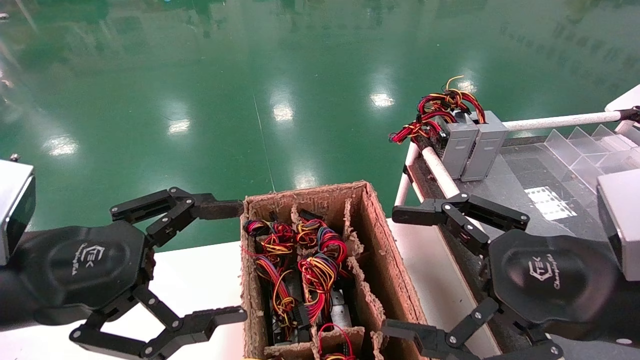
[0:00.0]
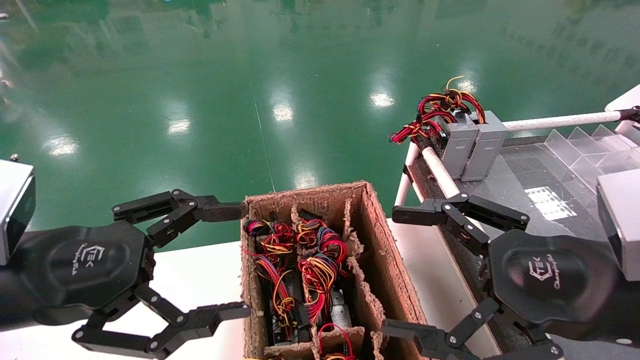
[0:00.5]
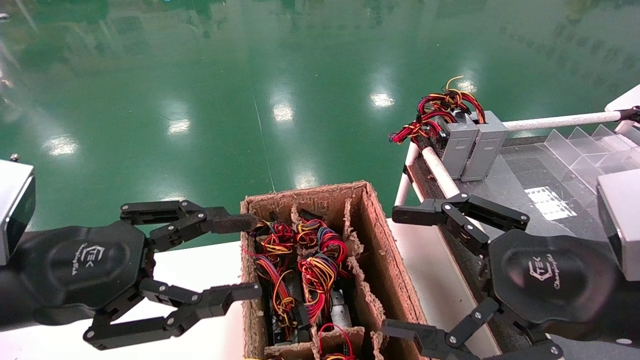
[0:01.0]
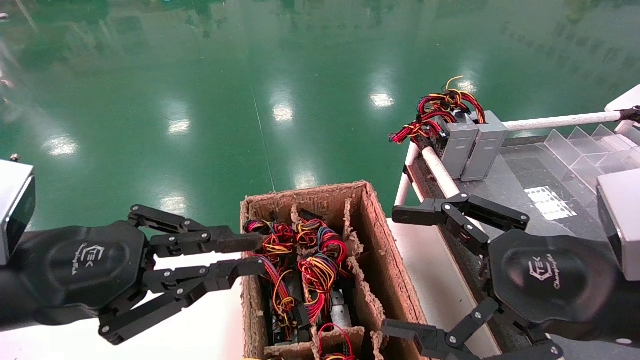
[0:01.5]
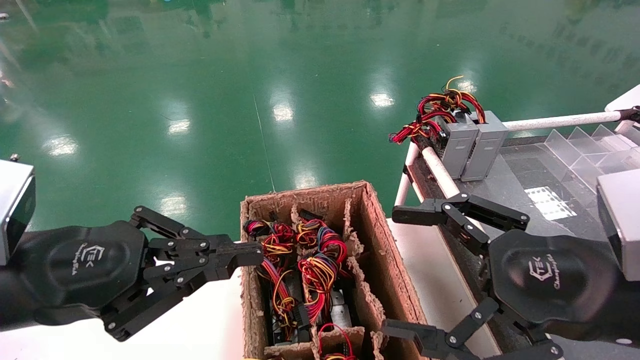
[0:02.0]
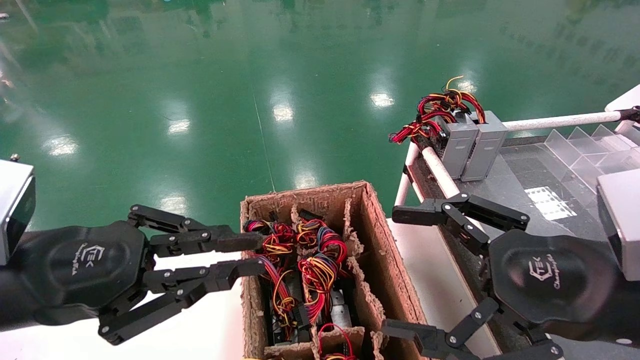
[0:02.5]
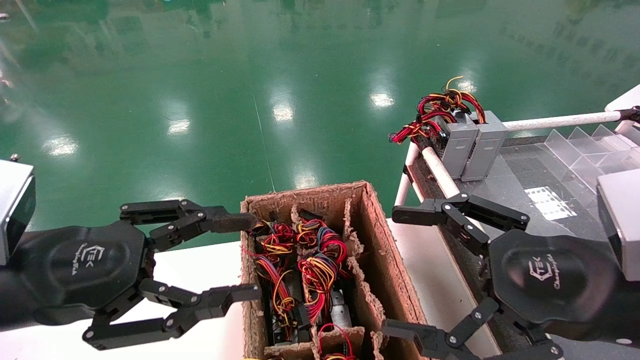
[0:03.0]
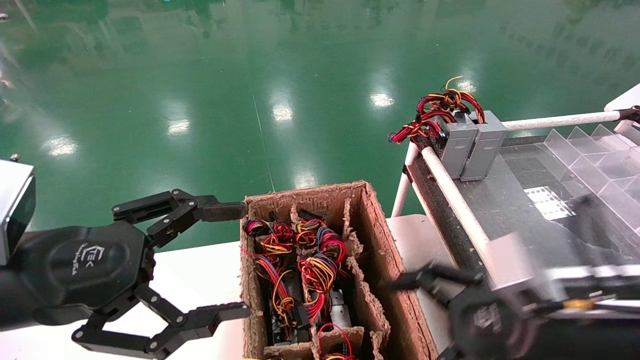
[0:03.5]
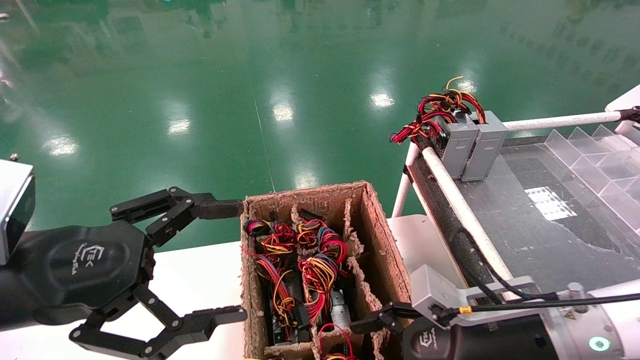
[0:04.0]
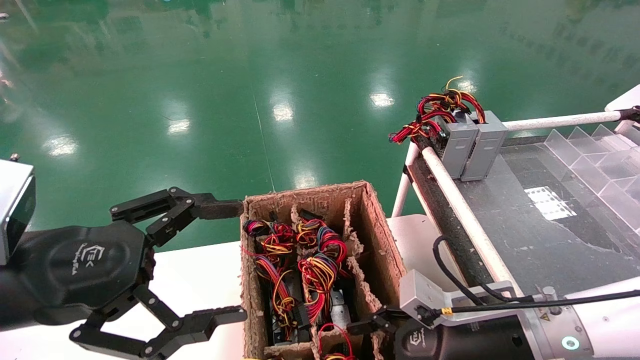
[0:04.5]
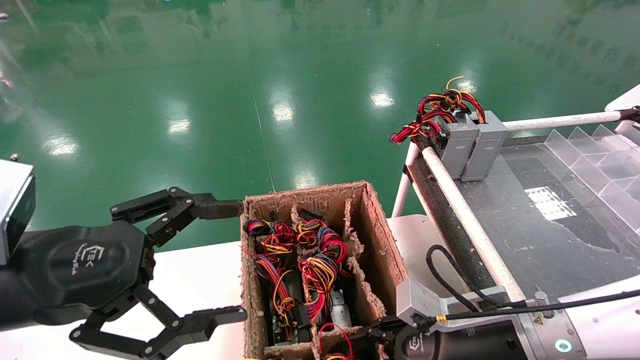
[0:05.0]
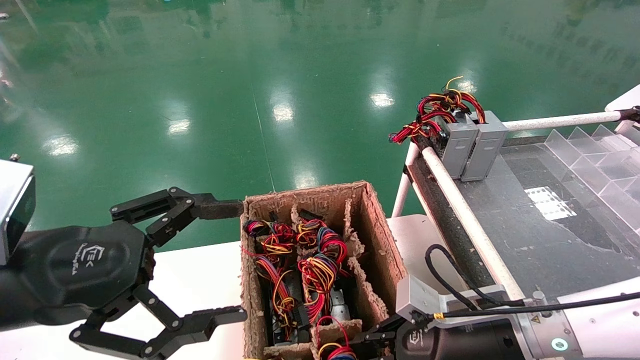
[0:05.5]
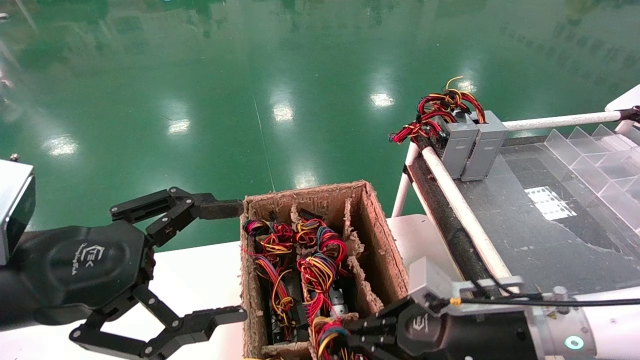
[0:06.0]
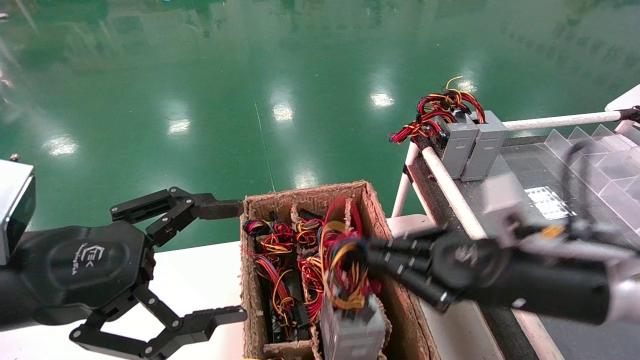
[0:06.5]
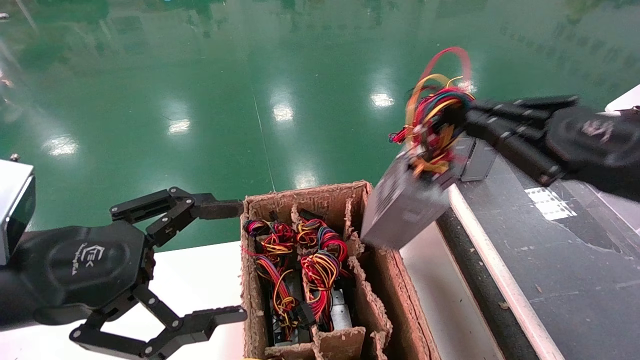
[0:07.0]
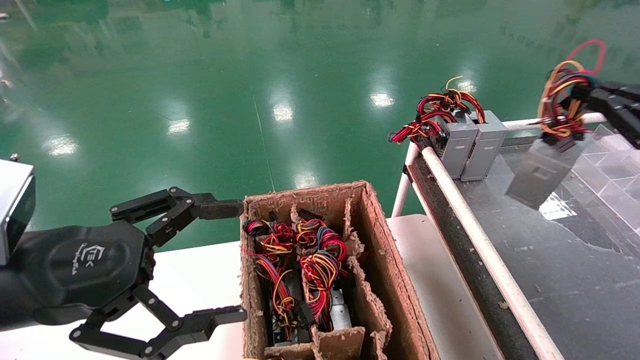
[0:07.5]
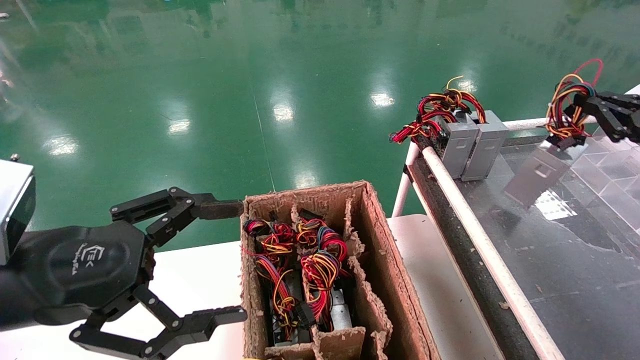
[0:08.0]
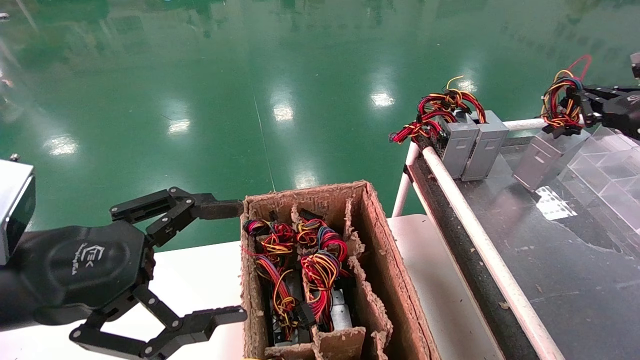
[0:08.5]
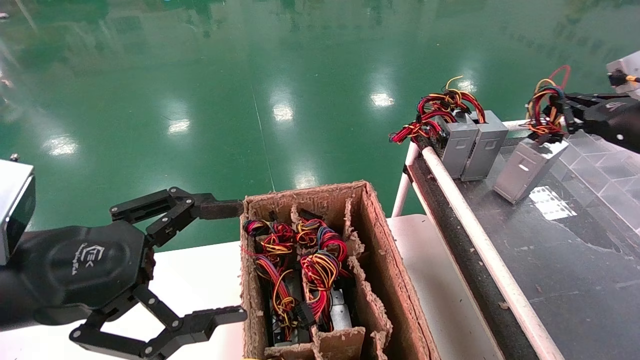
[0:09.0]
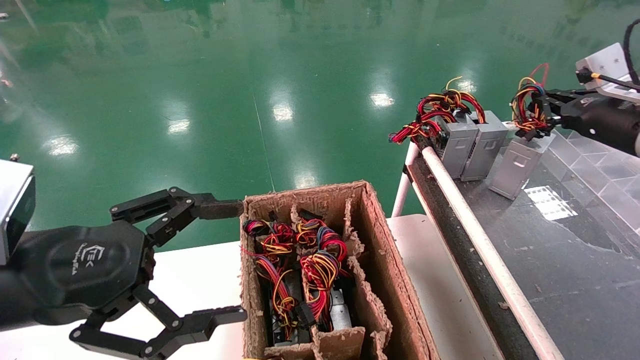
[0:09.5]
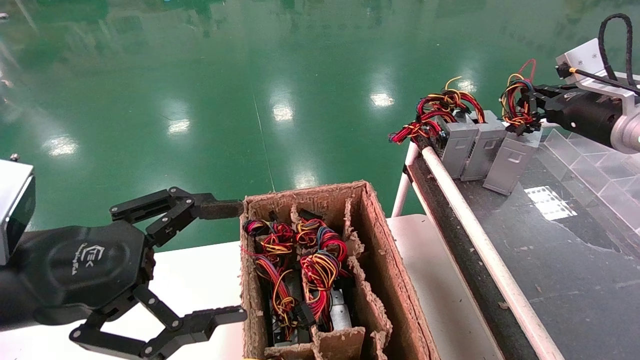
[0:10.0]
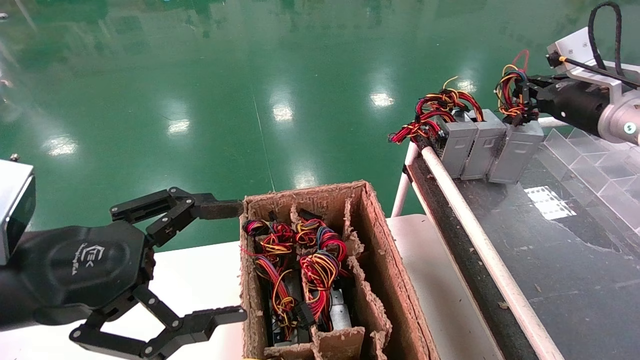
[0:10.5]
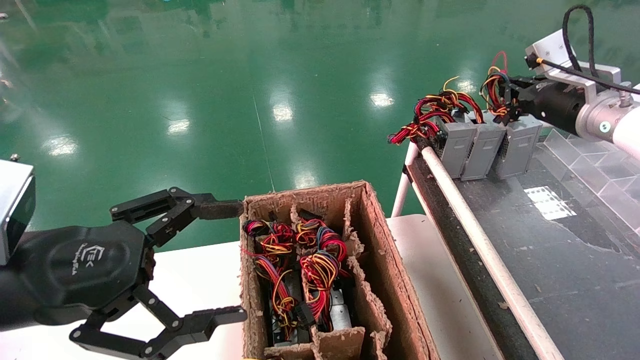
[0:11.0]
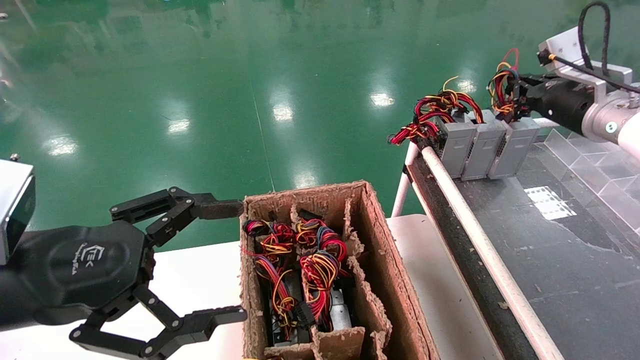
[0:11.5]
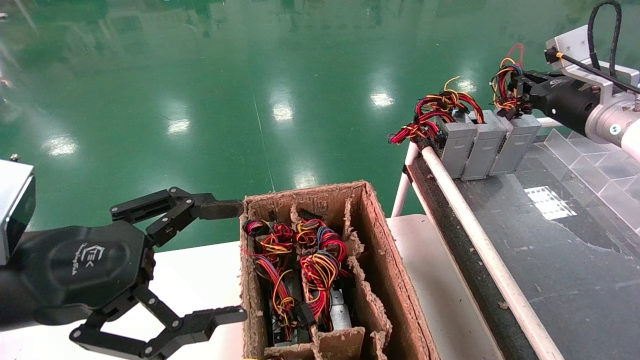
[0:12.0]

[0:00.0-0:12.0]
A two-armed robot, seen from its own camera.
Step, 0:02.0 to 0:05.5: Grab and lift the power supply from the large box.
0:00.0 to 0:02.0: The left gripper closes up.
0:02.0 to 0:04.0: The left gripper opens its fingers; the right gripper goes some 15 cm downward and forward.
0:04.0 to 0:06.0: The right gripper closes up.
0:06.0 to 0:08.0: The right gripper travels to the right and upward by roughly 30 cm.
0:08.0 to 0:10.0: The right gripper travels forward and to the left by some 10 cm.
0:10.0 to 0:12.0: There are only small adjustments of the grippers.

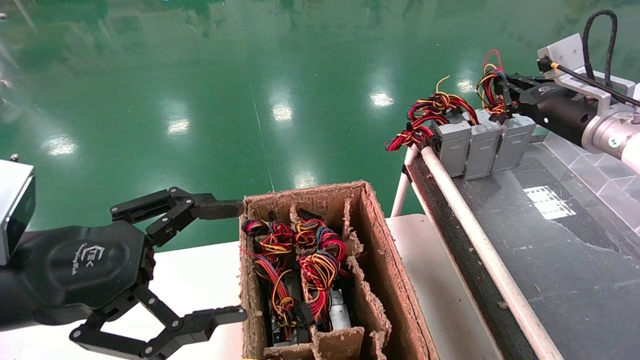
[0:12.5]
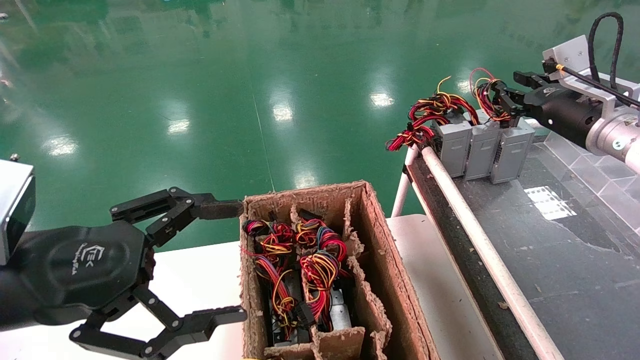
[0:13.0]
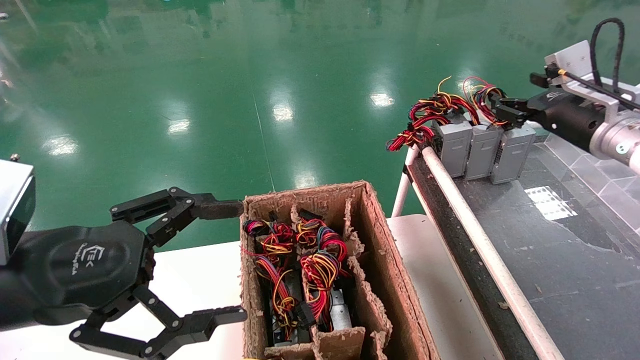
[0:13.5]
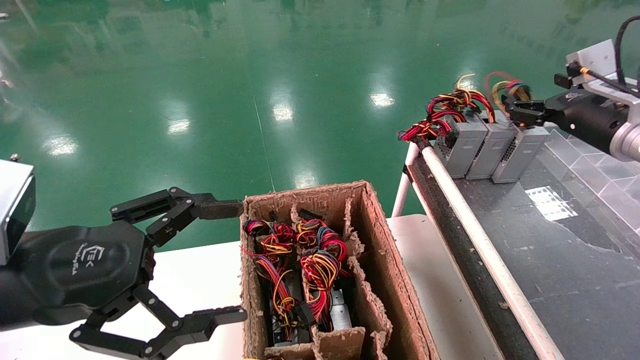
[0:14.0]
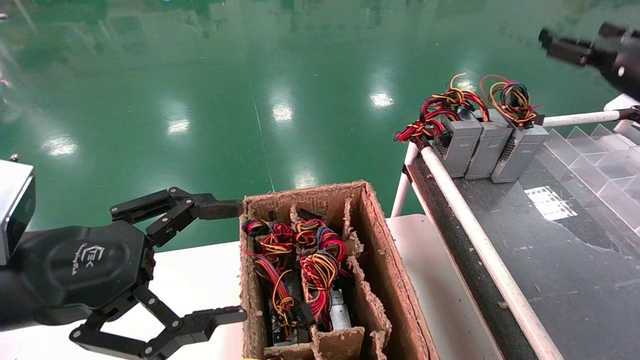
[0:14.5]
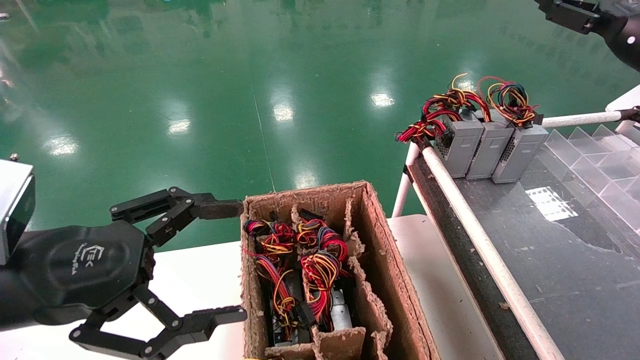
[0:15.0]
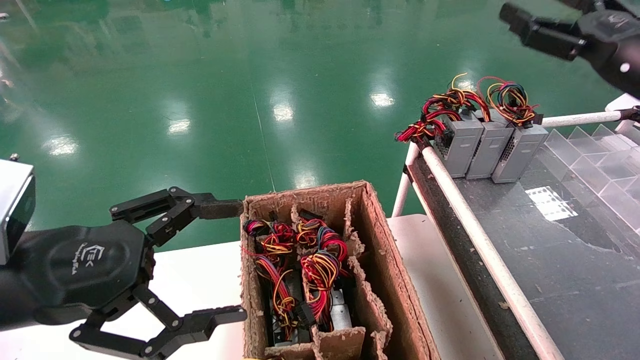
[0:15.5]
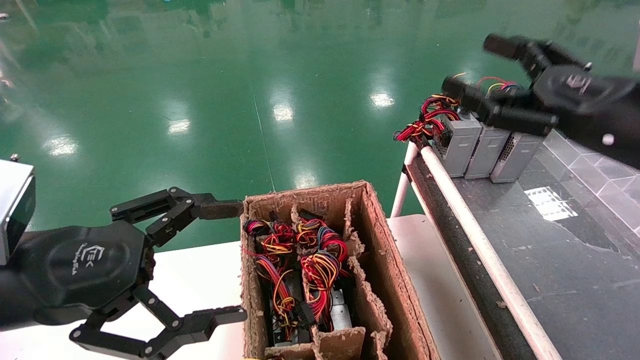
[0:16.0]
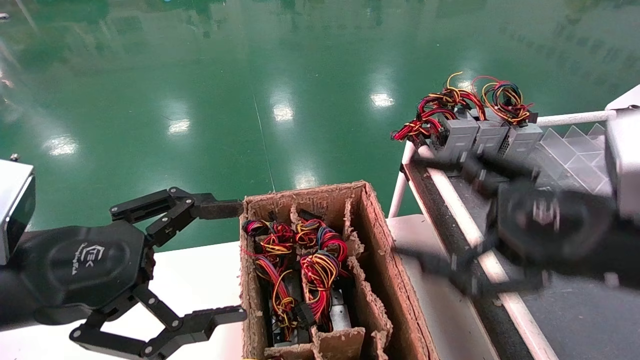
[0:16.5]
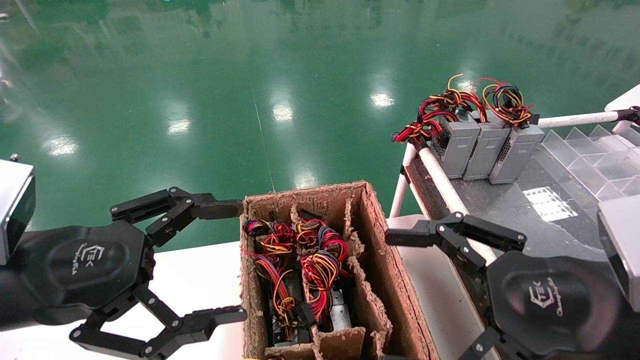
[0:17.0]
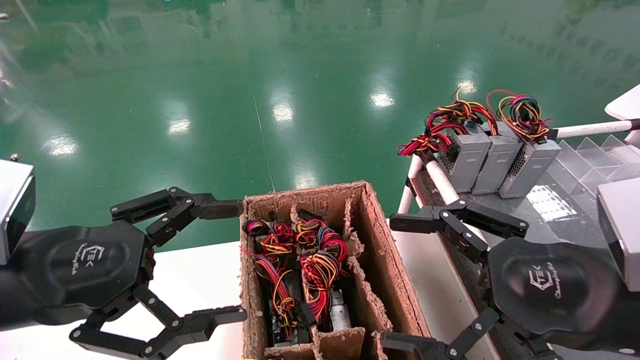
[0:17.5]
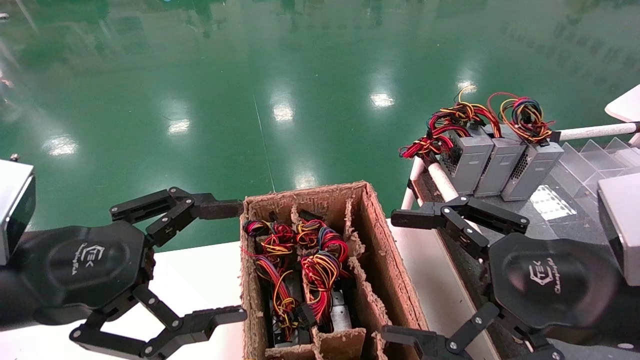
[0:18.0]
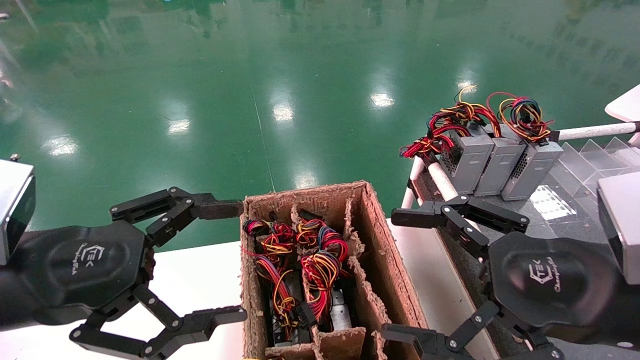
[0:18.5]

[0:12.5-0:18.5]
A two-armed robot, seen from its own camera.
0:12.5 to 0:14.5: The right gripper shifts roughly 5 cm upward, and opens up.
0:14.5 to 0:16.5: The right gripper shifts about 30 cm backward, to the left and downward.
0:16.5 to 0:18.5: The grippers make only small movements.

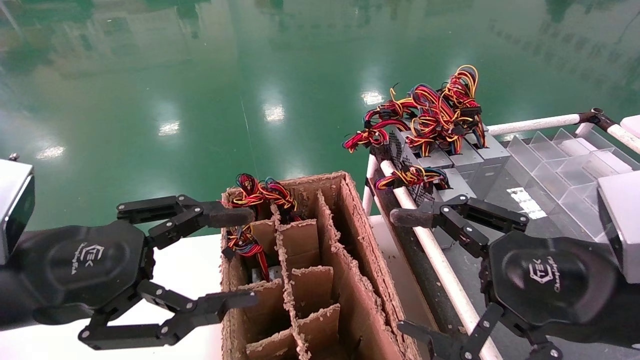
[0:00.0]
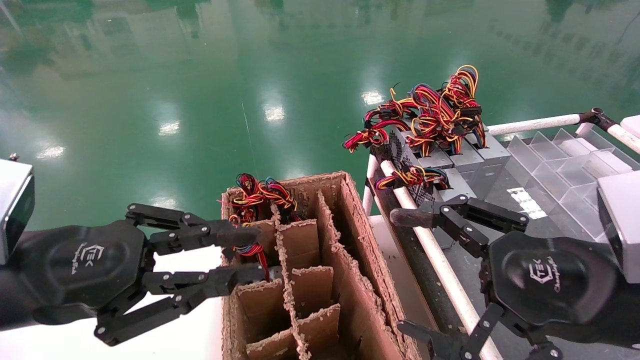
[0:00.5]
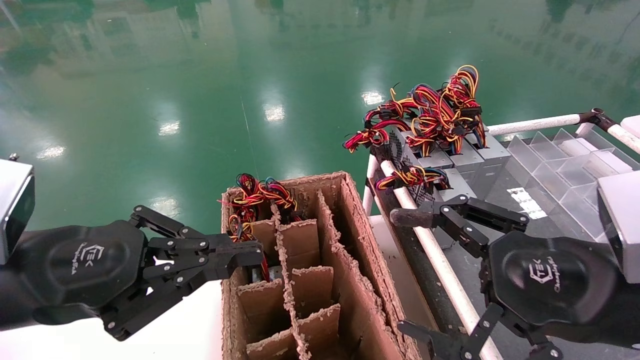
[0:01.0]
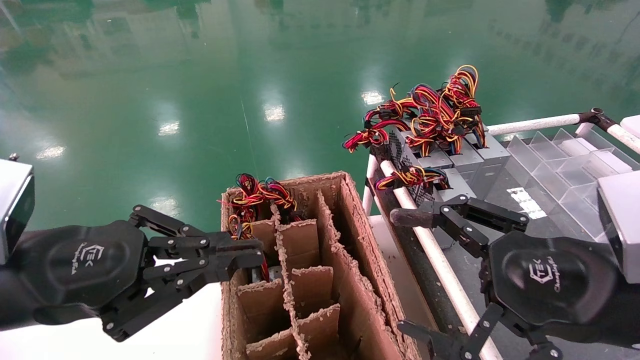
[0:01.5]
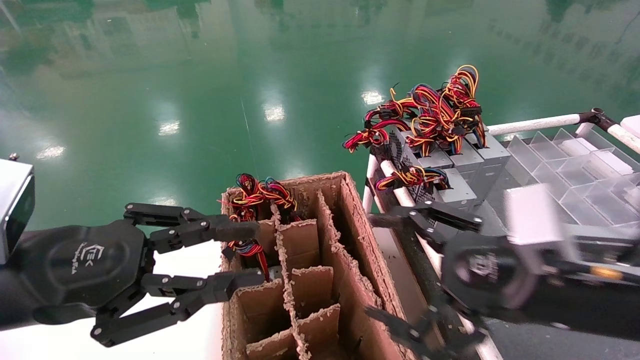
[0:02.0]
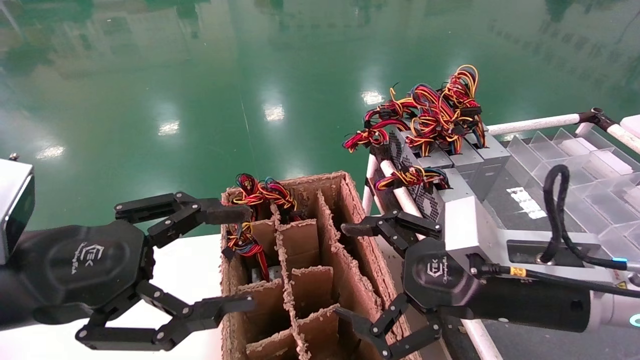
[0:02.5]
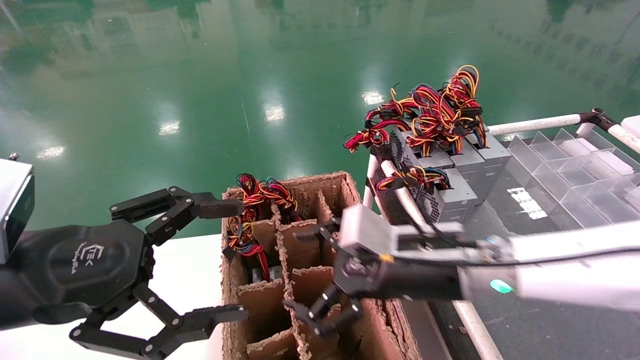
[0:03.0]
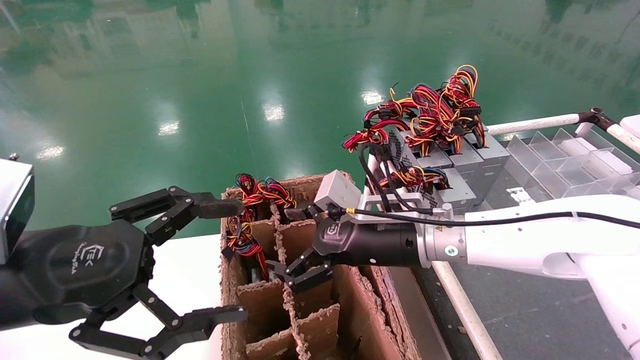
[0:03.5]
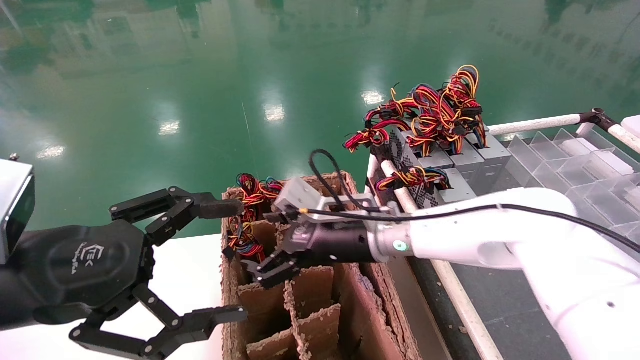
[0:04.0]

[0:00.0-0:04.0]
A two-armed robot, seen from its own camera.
0:00.0 to 0:02.0: The left gripper closes up; the right gripper shifts by some 5 cm.
0:02.0 to 0:04.0: The left gripper opens its fingers; the right gripper travels to the left and forward by roughly 25 cm.
